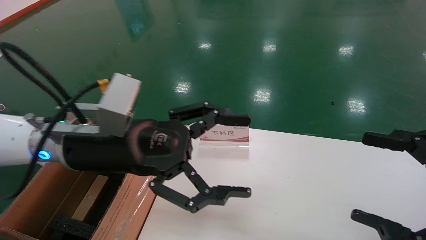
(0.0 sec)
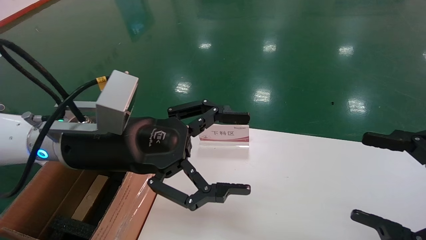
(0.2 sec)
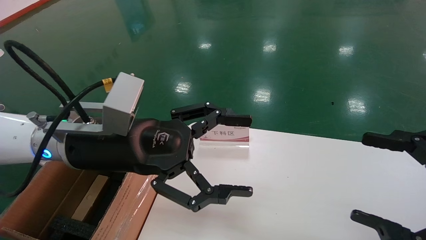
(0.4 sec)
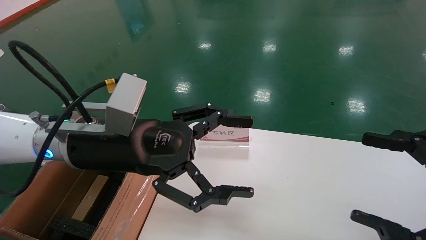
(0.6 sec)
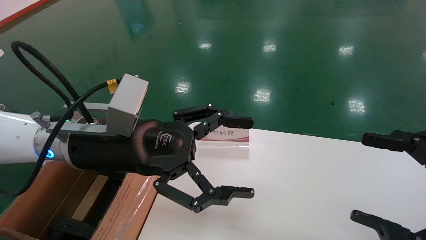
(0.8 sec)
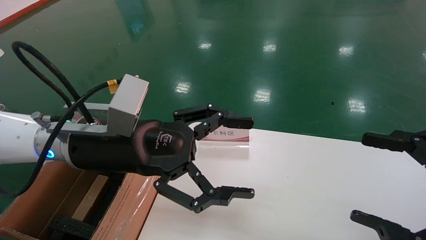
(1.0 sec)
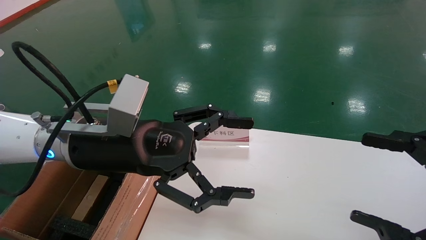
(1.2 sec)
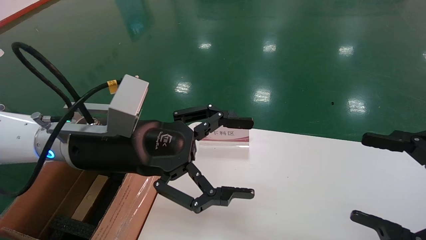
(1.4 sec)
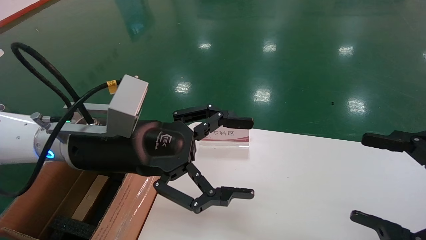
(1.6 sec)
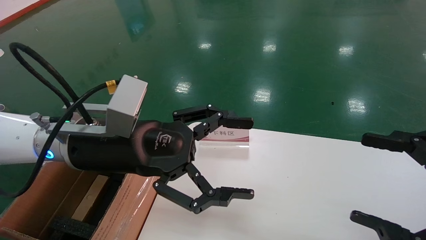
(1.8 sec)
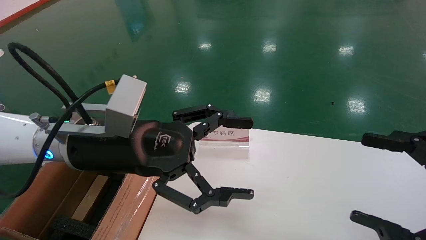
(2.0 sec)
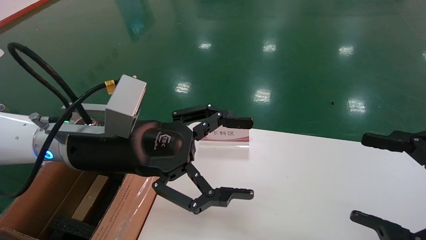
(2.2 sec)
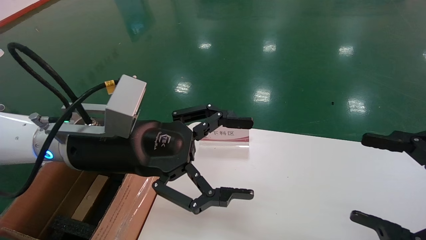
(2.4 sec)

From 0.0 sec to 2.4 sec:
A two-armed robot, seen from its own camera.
Task of the whole recording: pick up the small cardboard box and load it into the large cardboard box.
From 0.0 sec to 2.4 sec: The two grippers keep their place.
